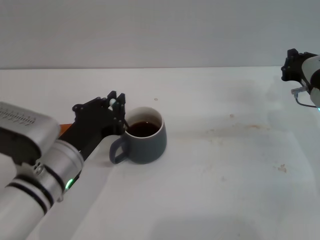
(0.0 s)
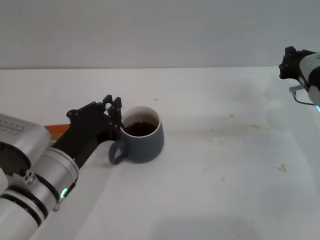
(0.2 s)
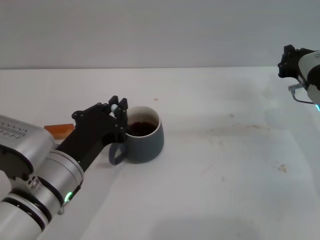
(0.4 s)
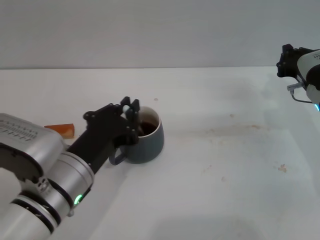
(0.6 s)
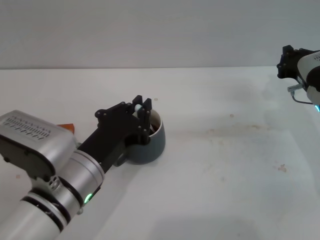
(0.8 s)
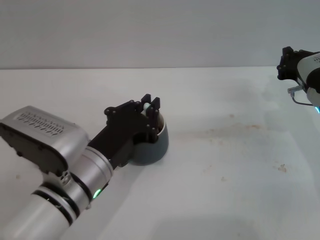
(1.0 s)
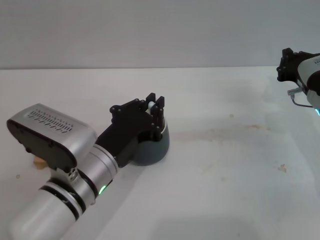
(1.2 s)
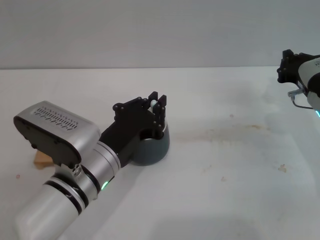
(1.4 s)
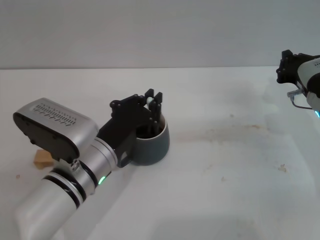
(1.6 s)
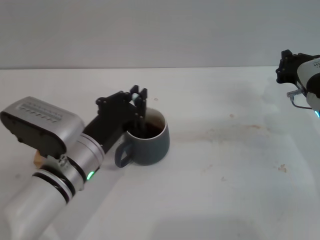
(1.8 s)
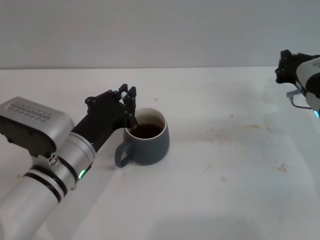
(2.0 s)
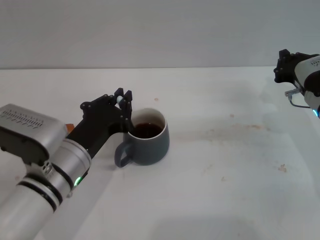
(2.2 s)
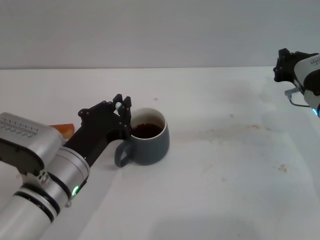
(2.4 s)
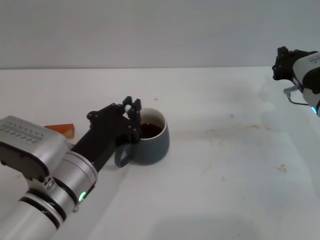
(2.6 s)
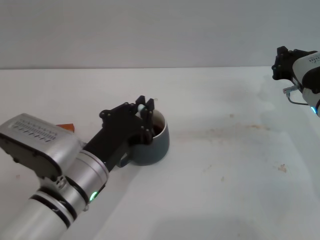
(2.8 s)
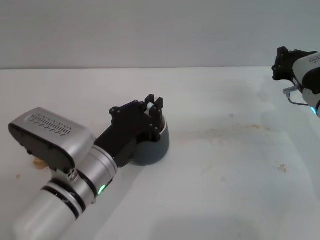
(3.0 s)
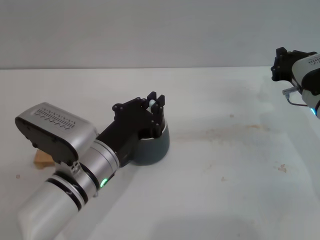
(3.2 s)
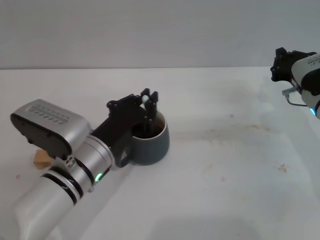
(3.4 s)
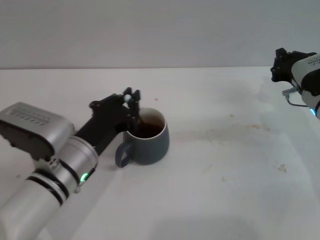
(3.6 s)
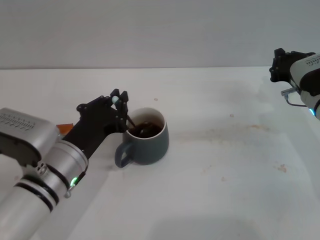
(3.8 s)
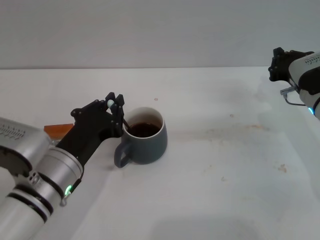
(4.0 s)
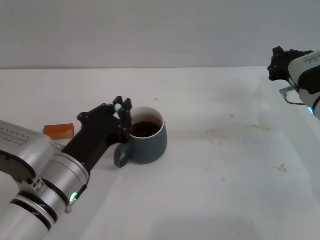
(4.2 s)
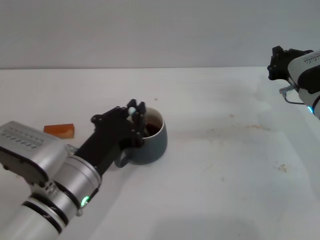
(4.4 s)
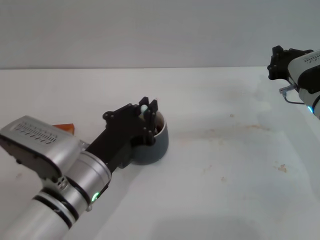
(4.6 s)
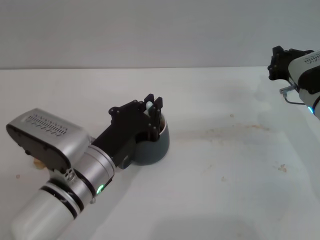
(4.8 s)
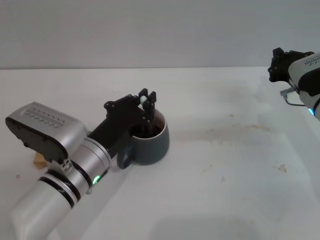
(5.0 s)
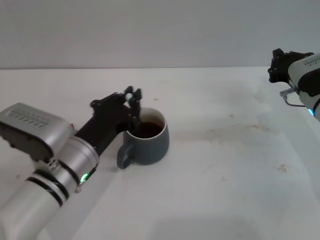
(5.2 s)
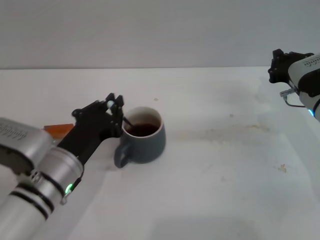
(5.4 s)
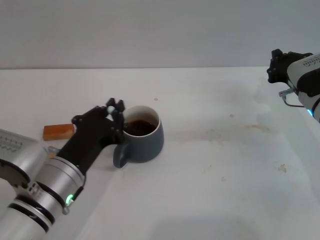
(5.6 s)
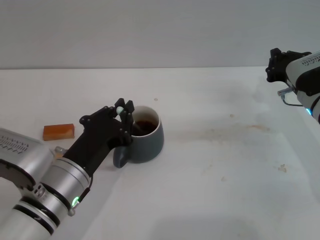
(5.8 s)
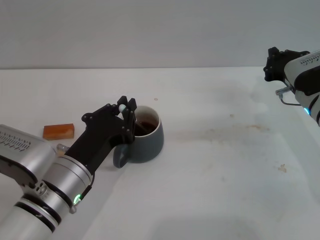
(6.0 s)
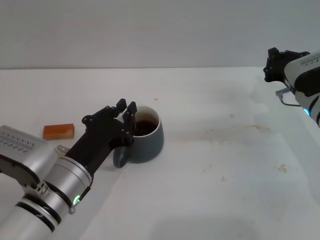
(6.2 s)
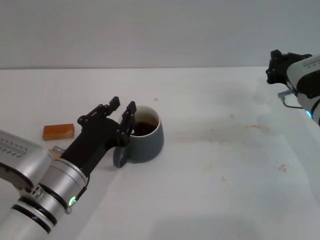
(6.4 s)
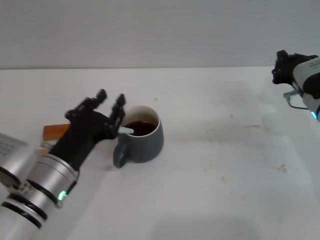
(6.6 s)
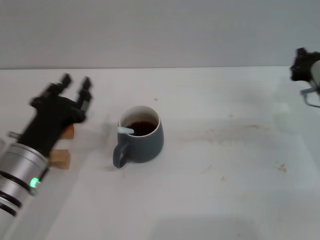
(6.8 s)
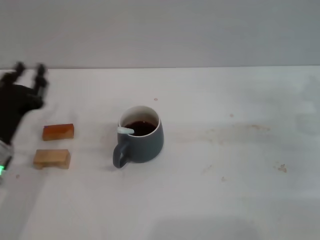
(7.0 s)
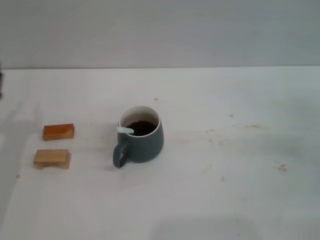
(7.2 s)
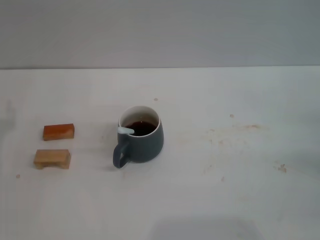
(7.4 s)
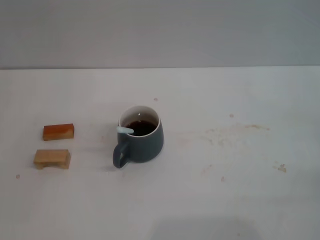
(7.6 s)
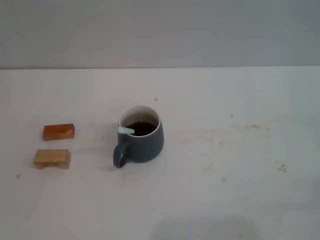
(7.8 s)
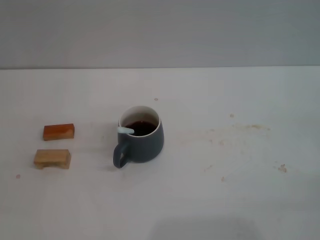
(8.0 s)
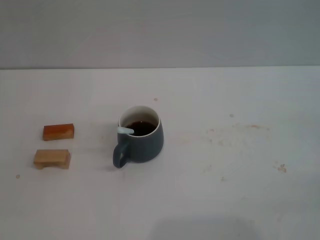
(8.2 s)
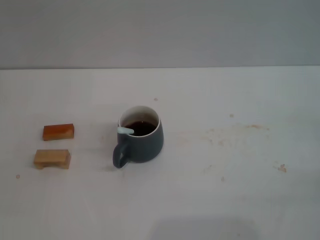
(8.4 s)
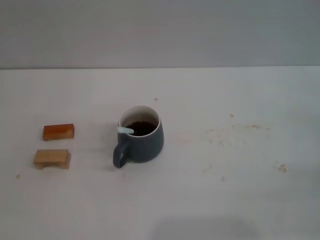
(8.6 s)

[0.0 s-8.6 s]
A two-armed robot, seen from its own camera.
Task of the whole recording: Move the grey cup to the center, lift the blue spoon, stir it three times in the cup, and put the spoon into the cup.
Step, 0.0 to 6.6 s: Stir the coffee in the cup with the left gripper.
0.0 to 5.8 s: There are only small adjustments of the grippers.
5.8 to 7.2 s: The right gripper heads to the right and backward, covering roughly 10 cm. Meanwhile the left gripper travels to the left by about 15 cm.

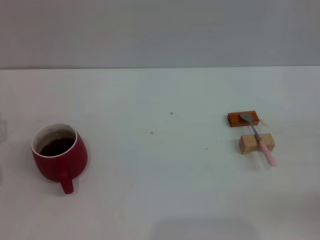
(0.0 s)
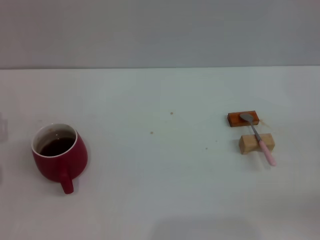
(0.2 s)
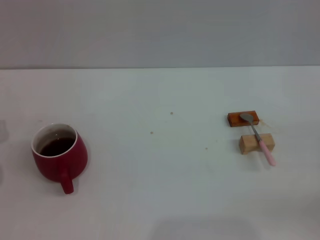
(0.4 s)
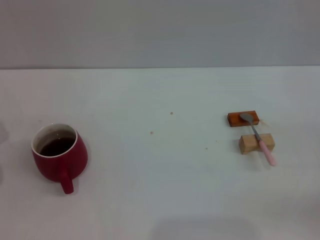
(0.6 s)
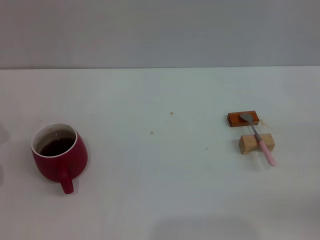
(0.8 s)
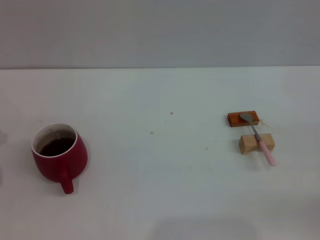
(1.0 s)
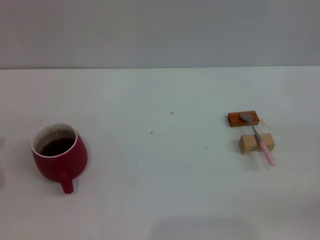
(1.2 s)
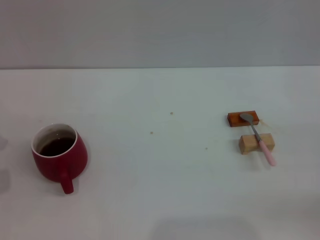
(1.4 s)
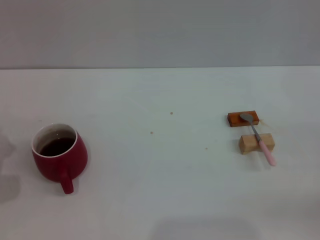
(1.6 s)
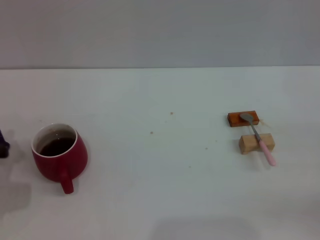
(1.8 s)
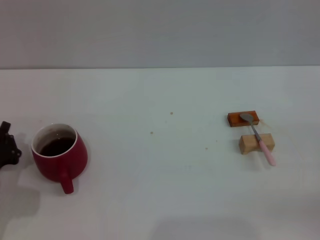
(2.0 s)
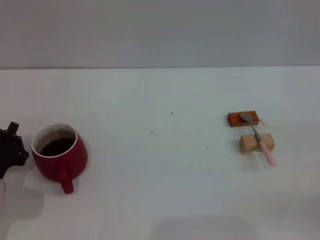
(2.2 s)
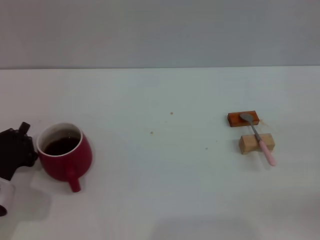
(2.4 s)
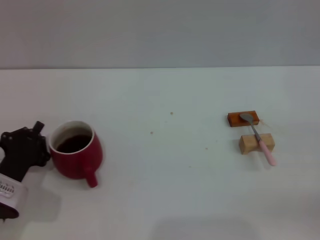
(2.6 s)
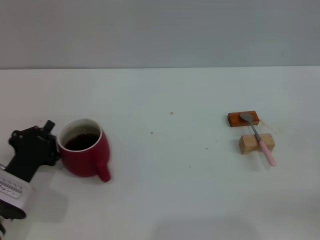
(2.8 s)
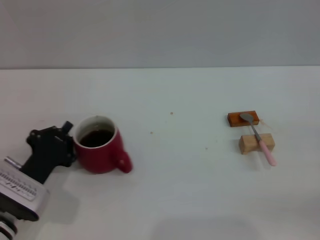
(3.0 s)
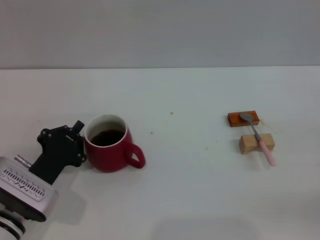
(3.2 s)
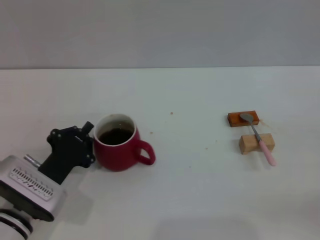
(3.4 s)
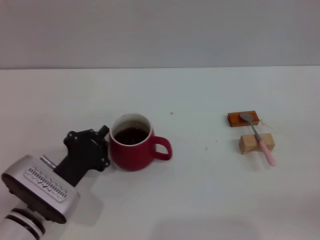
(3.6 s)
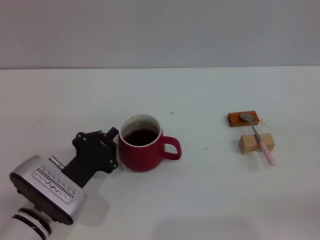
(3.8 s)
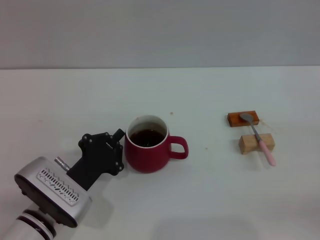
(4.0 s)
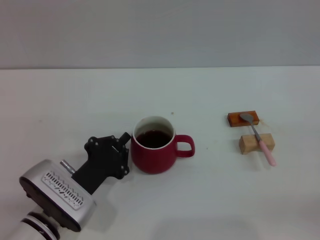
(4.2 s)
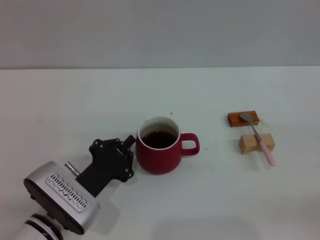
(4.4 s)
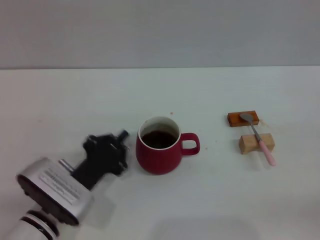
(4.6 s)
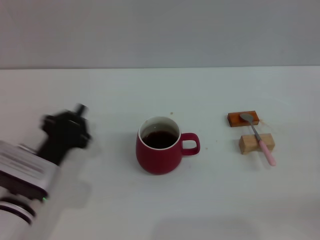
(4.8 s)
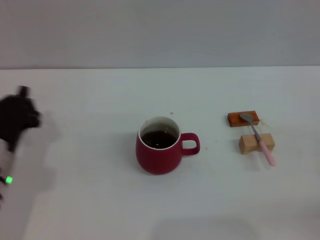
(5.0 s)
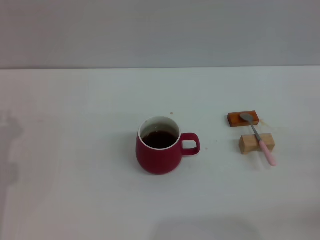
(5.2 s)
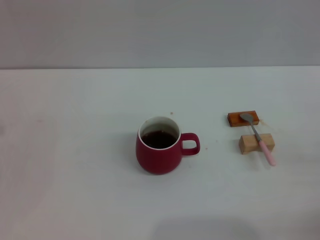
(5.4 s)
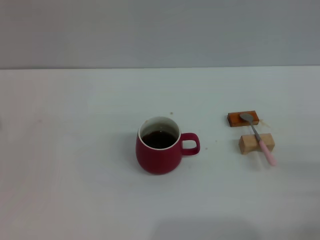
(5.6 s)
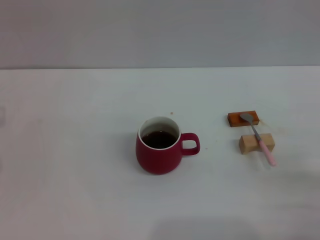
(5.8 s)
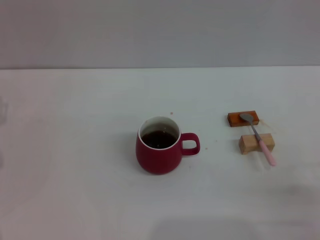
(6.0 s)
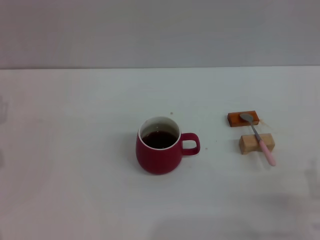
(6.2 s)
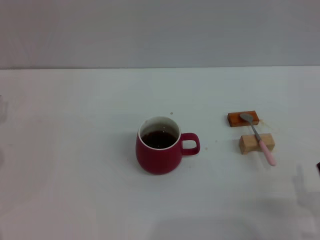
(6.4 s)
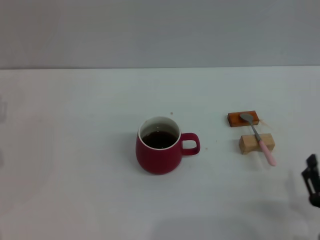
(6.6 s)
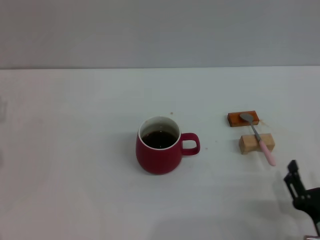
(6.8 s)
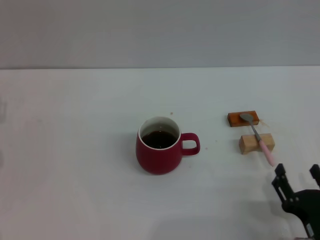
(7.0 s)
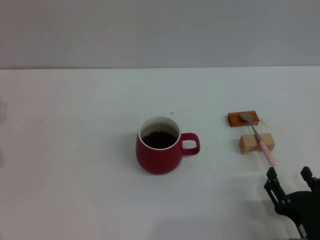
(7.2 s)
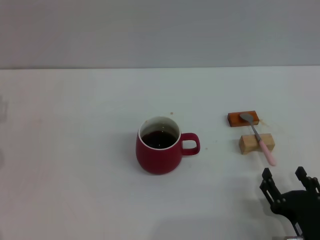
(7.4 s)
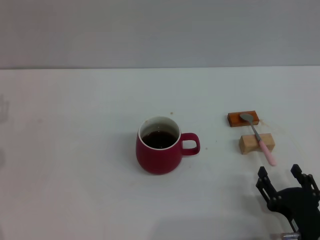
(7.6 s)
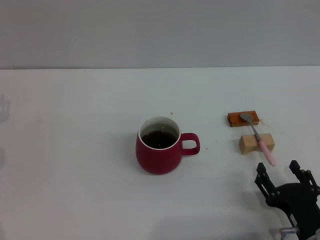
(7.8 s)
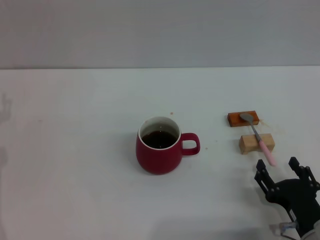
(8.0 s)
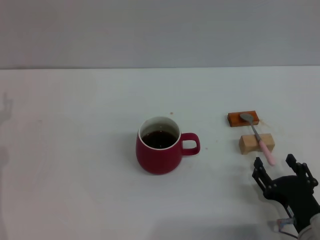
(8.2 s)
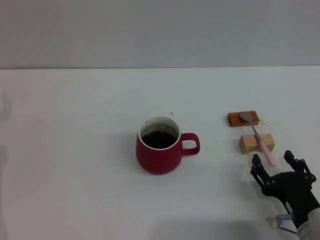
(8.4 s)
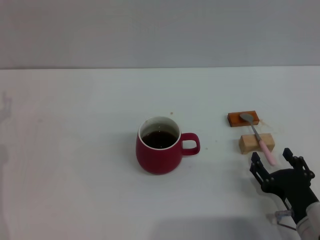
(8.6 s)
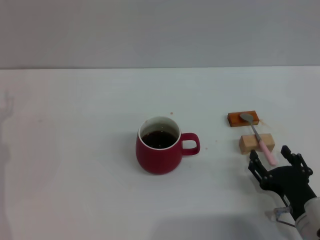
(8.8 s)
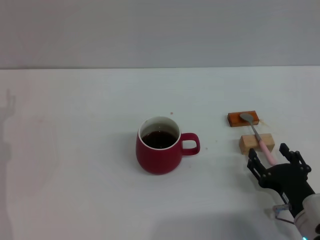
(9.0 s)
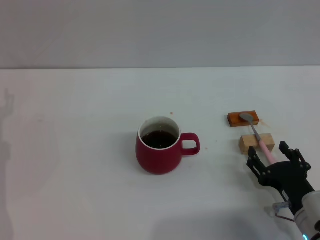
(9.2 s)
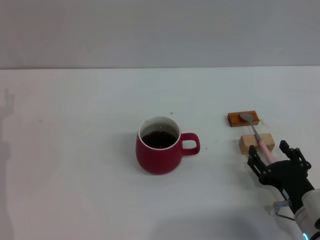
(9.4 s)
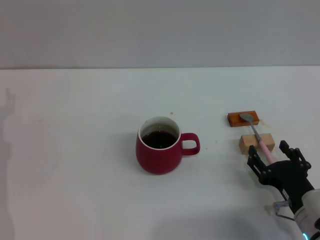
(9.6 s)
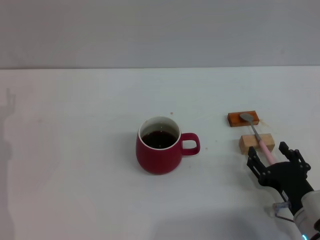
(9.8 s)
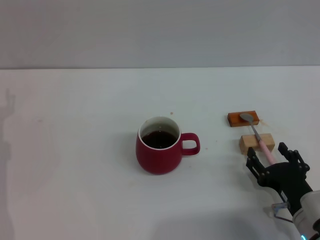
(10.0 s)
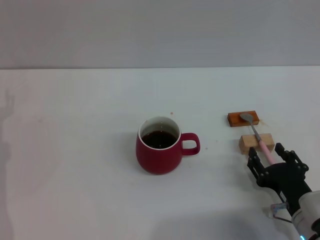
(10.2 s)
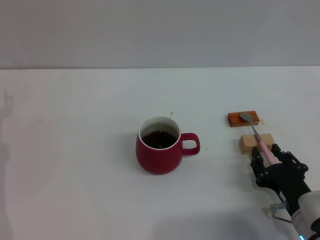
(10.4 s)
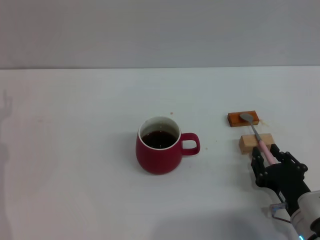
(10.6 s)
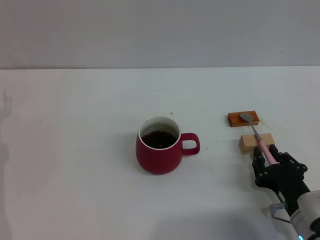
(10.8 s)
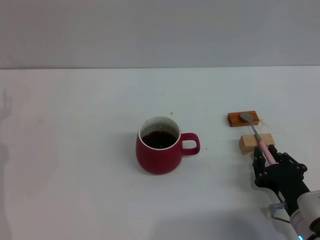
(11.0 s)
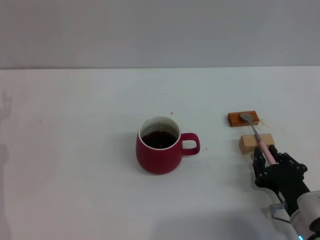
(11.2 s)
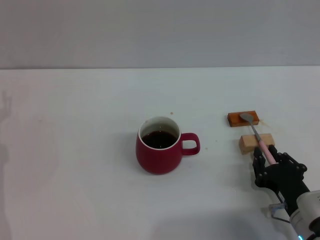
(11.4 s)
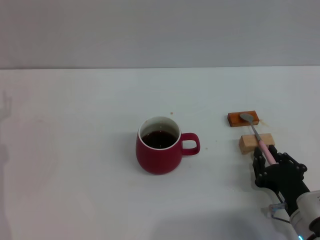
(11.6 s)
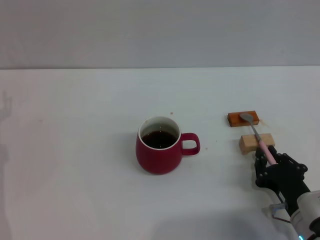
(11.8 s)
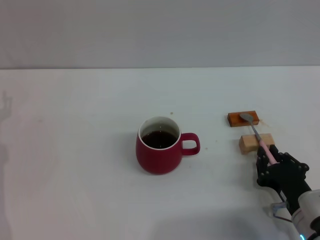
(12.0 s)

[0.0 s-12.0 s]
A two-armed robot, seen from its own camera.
Task of the whole recording: Move the red cup to the center, lift the pink spoon, stir it three times in the cup, and put the spoon into the cup.
Step, 0.0 to 4.6 s: Move the cup with coffee to the center of view with the left gripper.
1.6 to 3.0 s: The left gripper goes approximately 10 cm to the right.
3.0 to 4.4 s: The left gripper shifts some 5 cm to the right.
4.4 to 6.0 s: The left gripper shifts approximately 15 cm to the left, and opens its fingers. Meanwhile the right gripper goes some 20 cm to the left, backward and downward.
6.0 to 7.6 s: The right gripper moves to the left, roughly 5 cm.
7.6 to 9.0 s: The grippers make only small movements.
9.0 to 10.4 s: Both grippers stay put.
10.4 to 12.0 s: The right gripper closes its fingers.

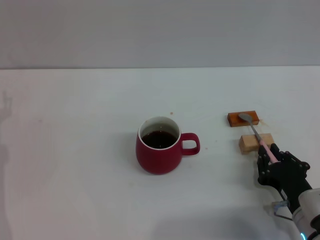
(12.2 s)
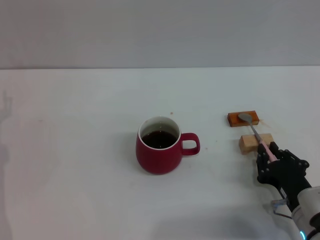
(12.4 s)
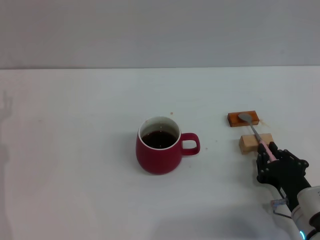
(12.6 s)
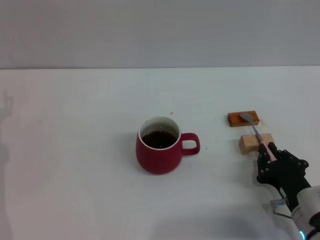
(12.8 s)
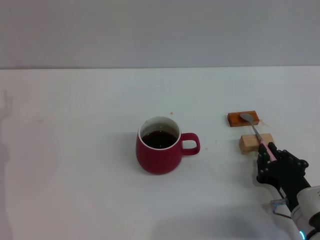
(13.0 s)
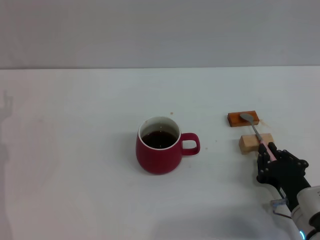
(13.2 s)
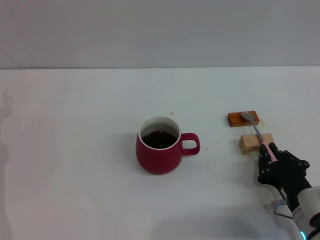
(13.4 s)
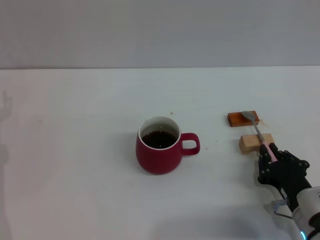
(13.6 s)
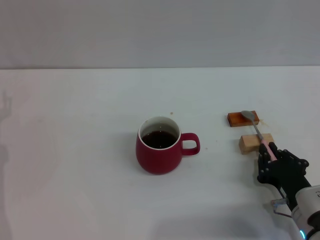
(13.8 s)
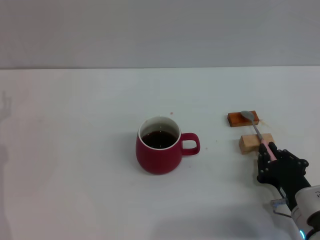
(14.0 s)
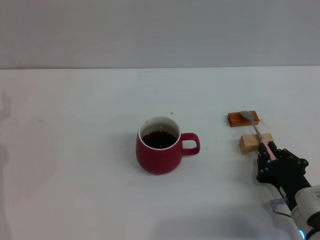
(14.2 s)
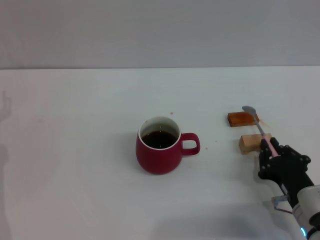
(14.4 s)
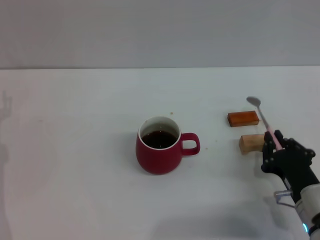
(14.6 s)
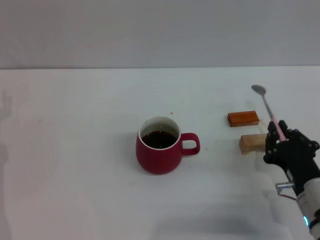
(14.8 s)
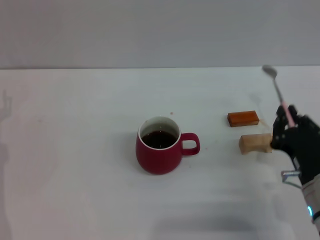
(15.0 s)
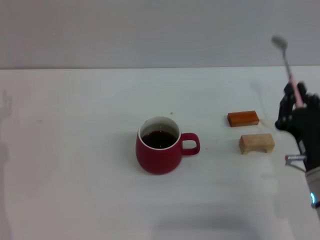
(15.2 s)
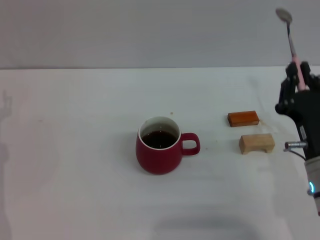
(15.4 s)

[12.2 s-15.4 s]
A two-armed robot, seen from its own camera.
Task of the whole recording: Move the red cup to the center, lift the pink spoon, stir it three times in the cup, and put the spoon into the cup.
Step, 12.2 to 15.0 s: Pick up the spoon with the right gripper.
12.2 to 13.8 s: Neither gripper changes place.
13.8 to 15.4 s: The right gripper shifts about 10 cm upward.
